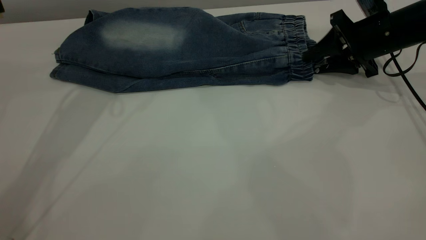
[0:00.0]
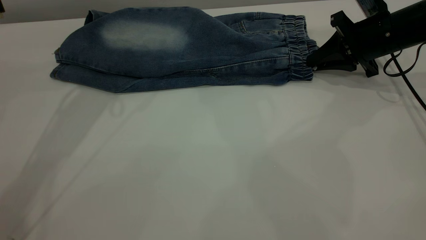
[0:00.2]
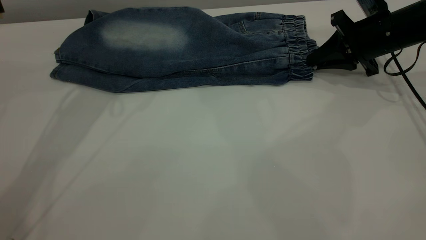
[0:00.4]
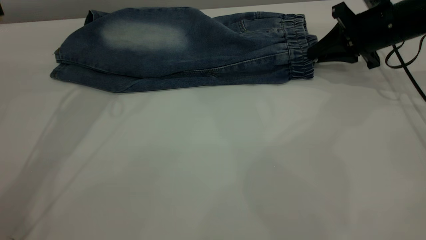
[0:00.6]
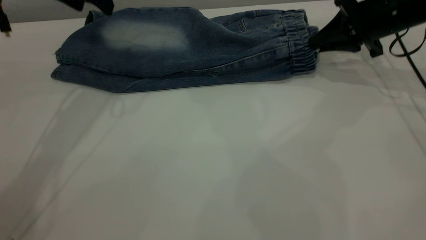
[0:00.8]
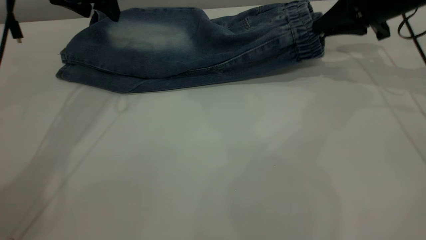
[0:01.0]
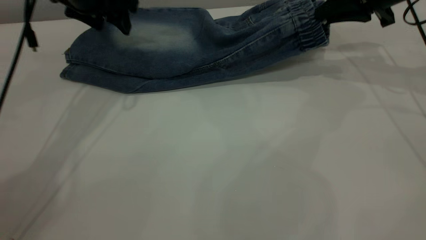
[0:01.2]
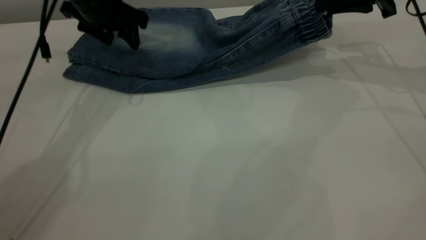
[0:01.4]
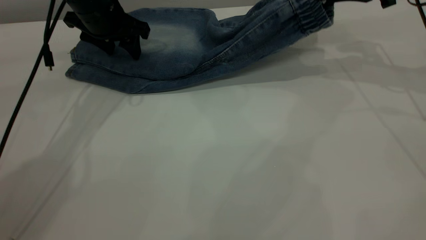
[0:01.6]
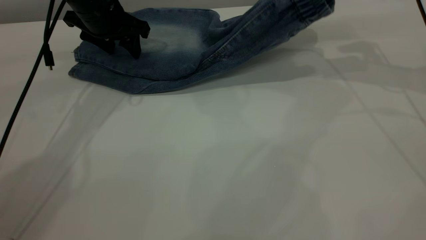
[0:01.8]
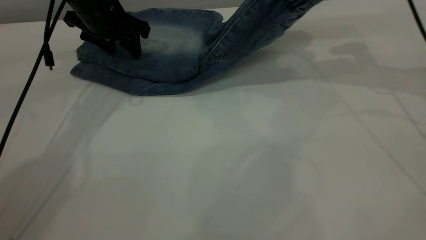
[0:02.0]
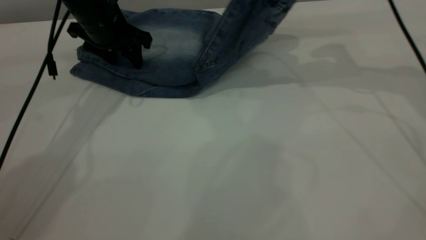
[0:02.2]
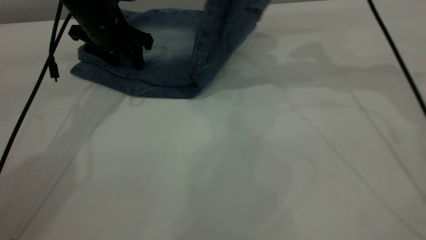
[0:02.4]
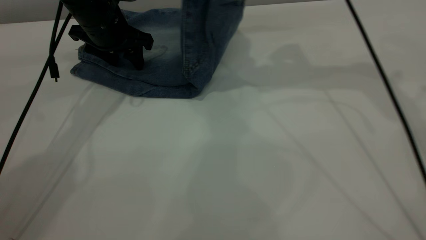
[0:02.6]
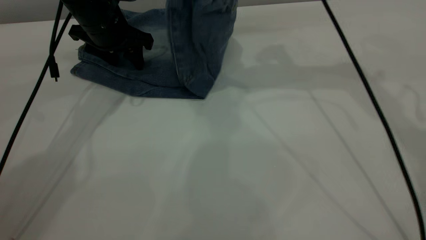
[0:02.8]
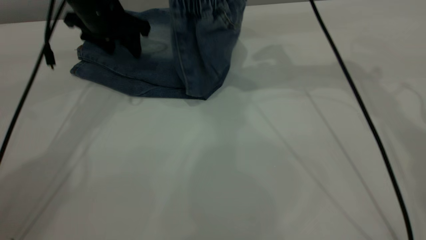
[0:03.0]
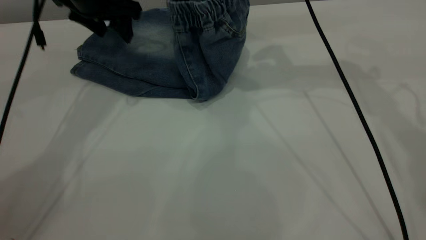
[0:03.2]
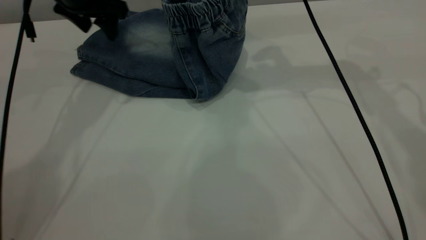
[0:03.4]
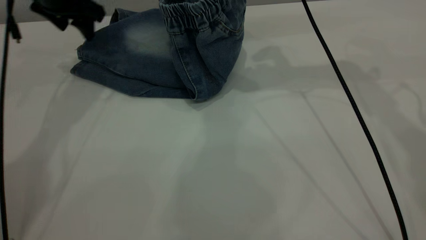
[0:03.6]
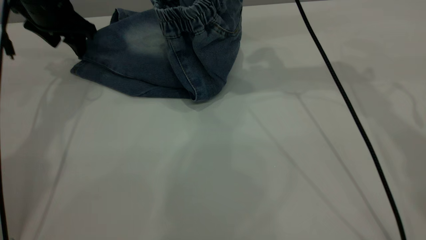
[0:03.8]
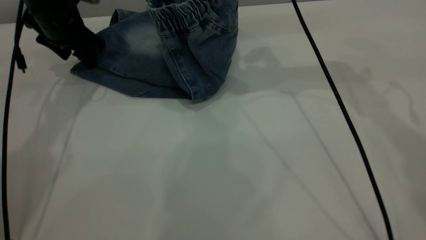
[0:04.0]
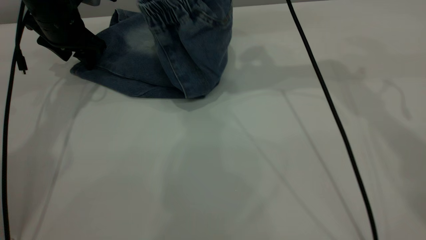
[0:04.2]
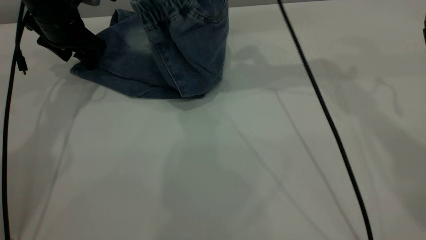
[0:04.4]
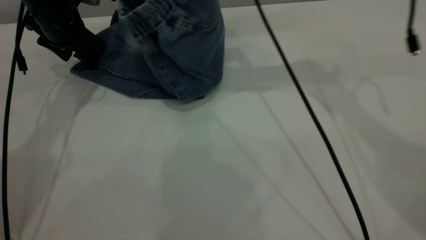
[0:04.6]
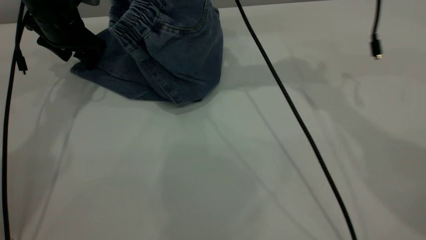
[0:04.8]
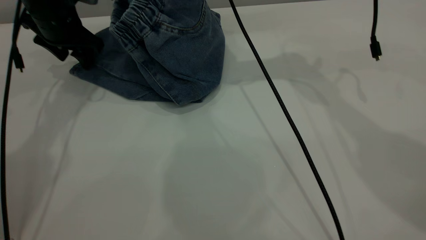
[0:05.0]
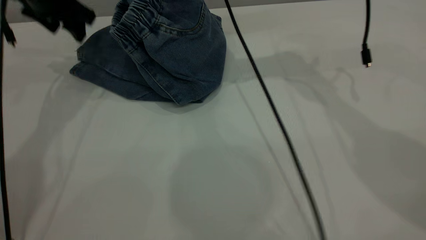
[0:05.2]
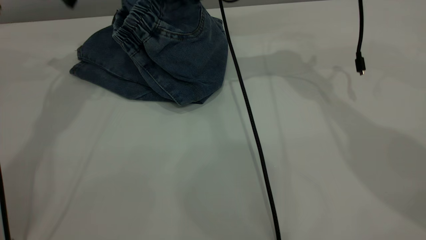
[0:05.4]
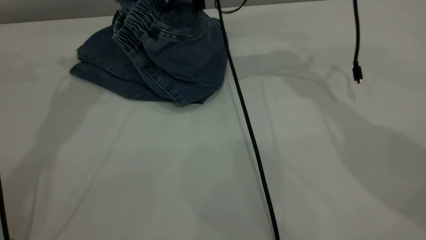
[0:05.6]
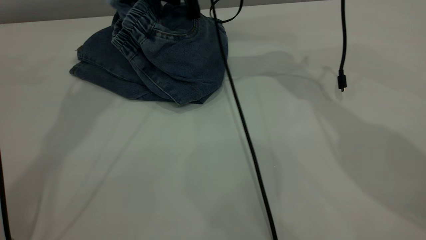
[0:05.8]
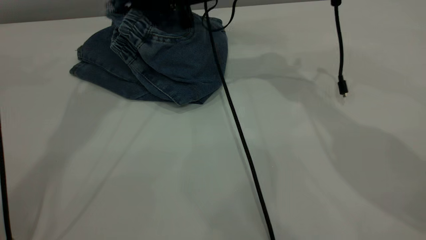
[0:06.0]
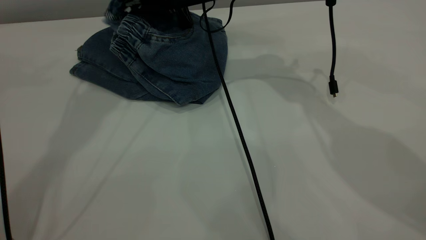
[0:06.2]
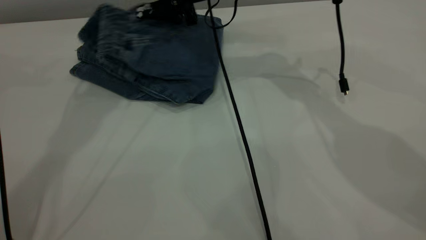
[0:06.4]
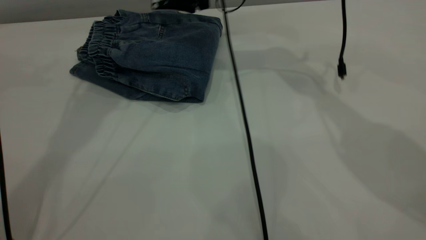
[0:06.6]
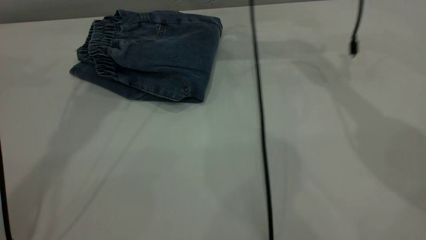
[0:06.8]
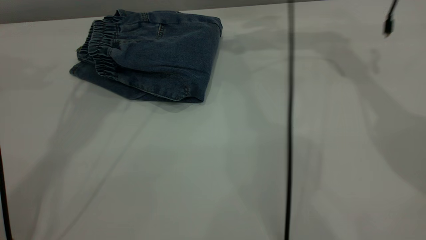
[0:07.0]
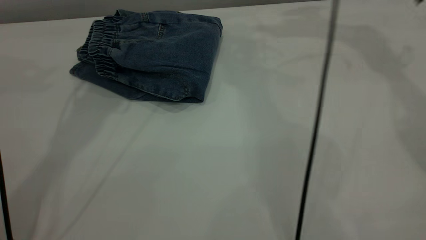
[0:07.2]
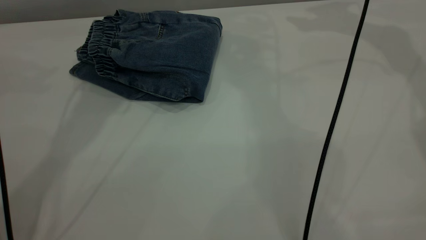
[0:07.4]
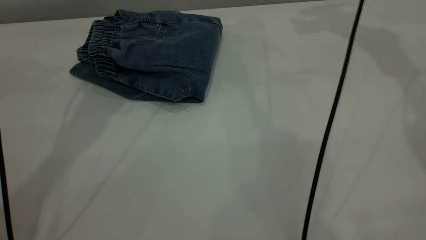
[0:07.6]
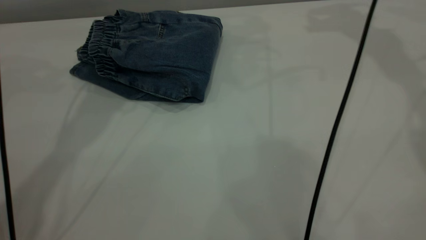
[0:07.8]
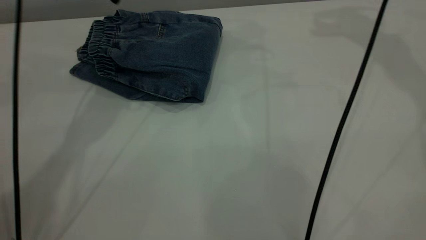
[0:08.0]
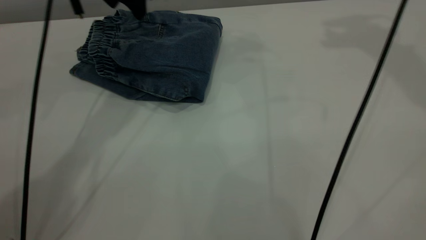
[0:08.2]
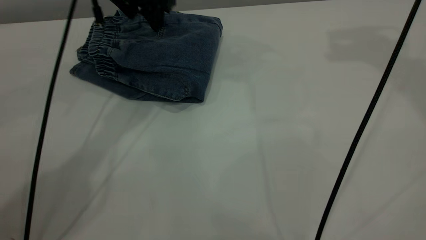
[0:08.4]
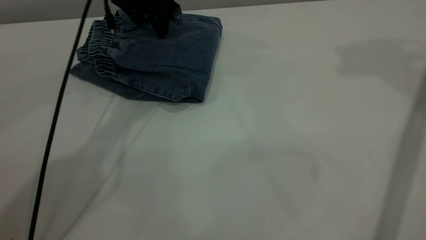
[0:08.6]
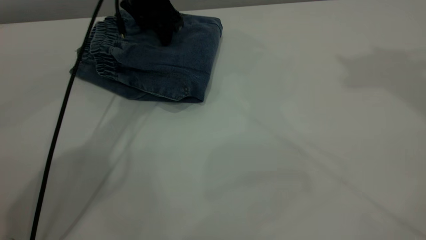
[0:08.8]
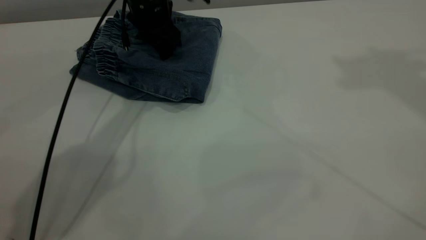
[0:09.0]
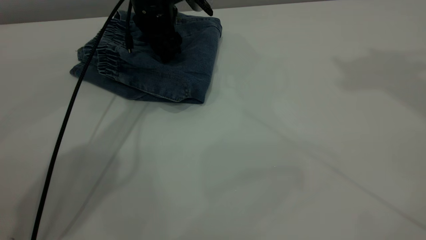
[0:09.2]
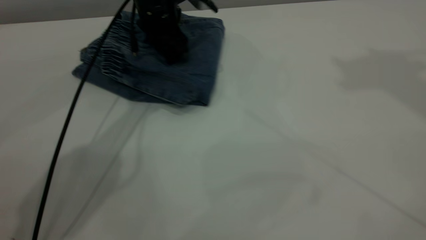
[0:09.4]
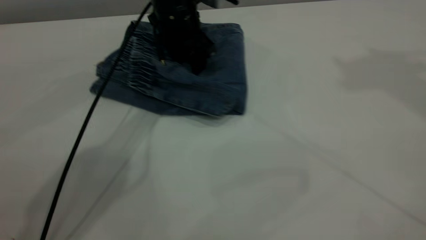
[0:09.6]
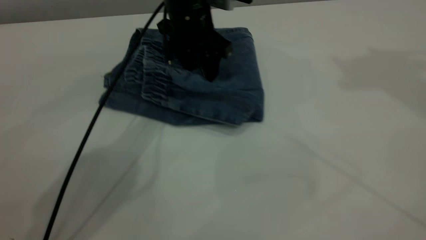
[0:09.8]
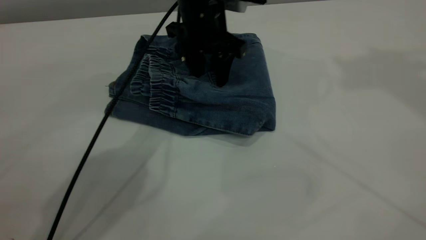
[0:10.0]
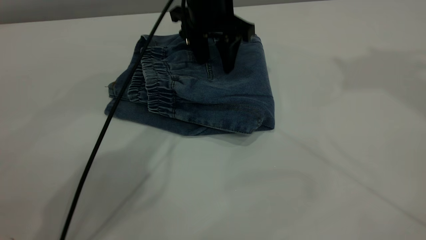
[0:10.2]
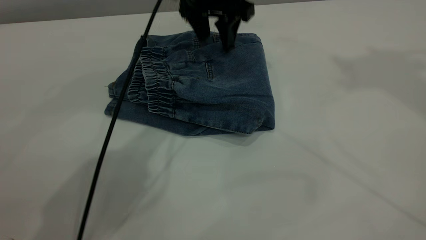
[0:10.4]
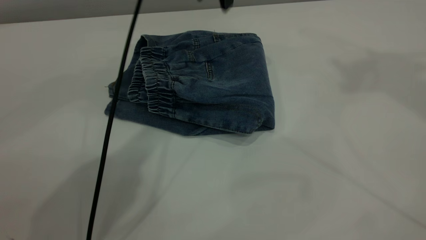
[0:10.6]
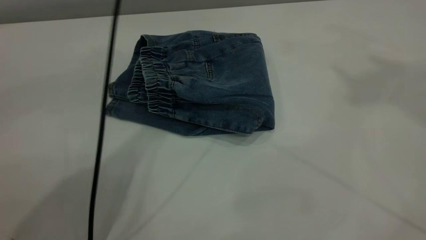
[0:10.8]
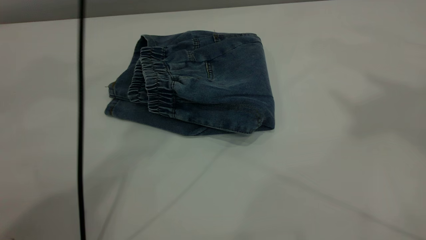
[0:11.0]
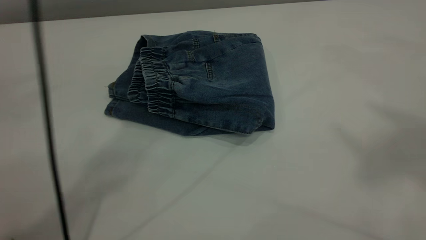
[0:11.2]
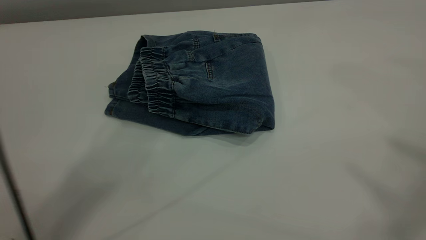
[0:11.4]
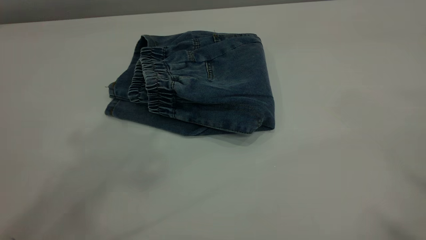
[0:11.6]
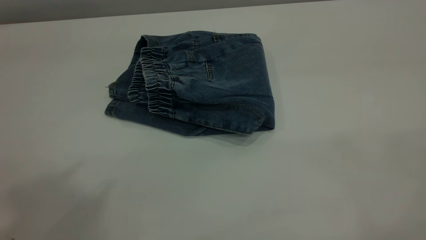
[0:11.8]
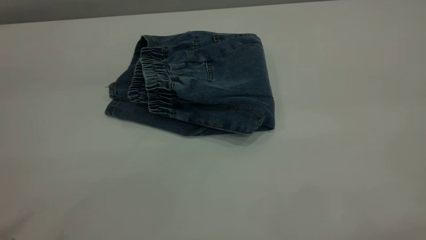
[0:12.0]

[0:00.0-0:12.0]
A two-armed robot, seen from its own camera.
Step, 0:00.0 to 0:07.2: Fold your pants from right to left.
0:00.0 to 0:01.6: The right gripper travels upward by roughly 10 cm. The left gripper shifts some 10 cm downward.
0:01.6 to 0:03.0: The right gripper moves to the left, roughly 15 cm.
0:03.0 to 0:04.4: The left gripper moves to the left, roughly 5 cm.
0:04.4 to 0:06.0: The left gripper moves upward, some 20 cm. The right gripper travels downward and to the left by approximately 15 cm.
0:06.0 to 0:07.6: The right gripper shifts approximately 30 cm to the right and upward, and opens up.
0:07.6 to 0:09.0: The left gripper moves downward and to the right, some 20 cm, while the right gripper heads upward and backward, covering roughly 30 cm.
0:09.0 to 0:10.4: The left gripper heads to the right and upward, covering approximately 10 cm.
0:10.4 to 0:12.0: The left gripper is displaced backward, upward and to the left by some 60 cm. The right gripper moves backward, some 35 cm.

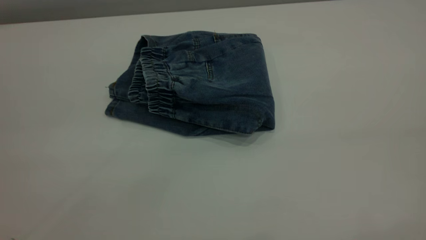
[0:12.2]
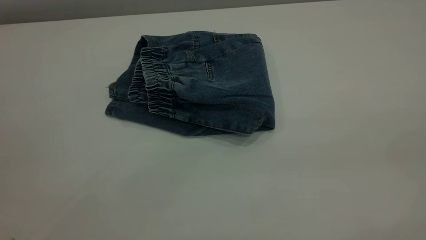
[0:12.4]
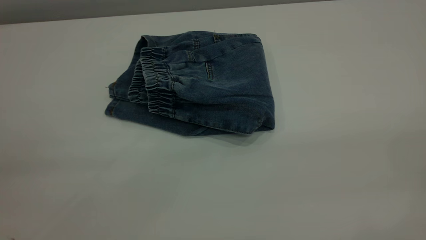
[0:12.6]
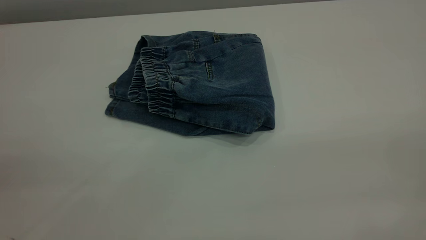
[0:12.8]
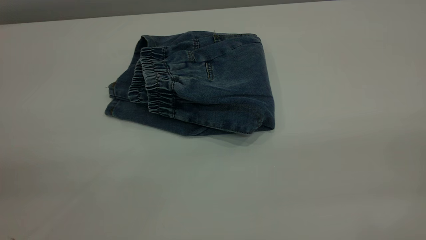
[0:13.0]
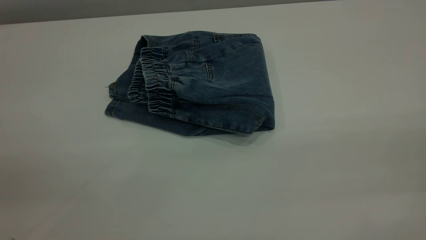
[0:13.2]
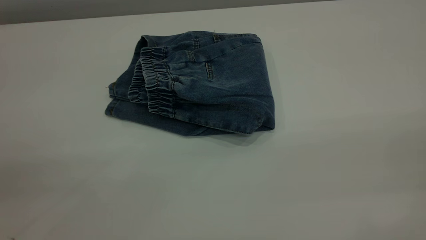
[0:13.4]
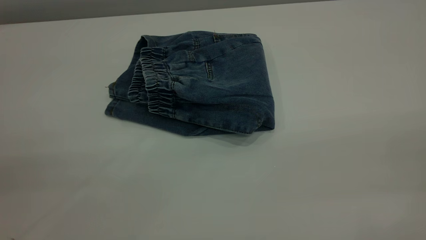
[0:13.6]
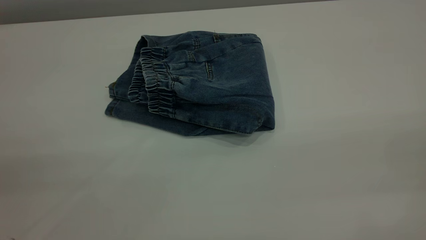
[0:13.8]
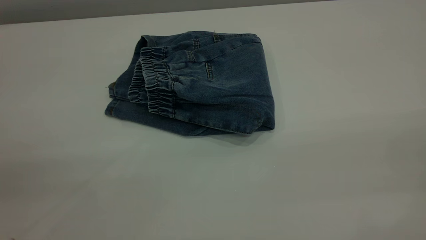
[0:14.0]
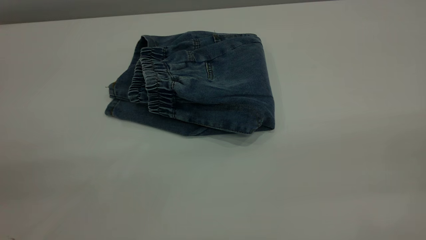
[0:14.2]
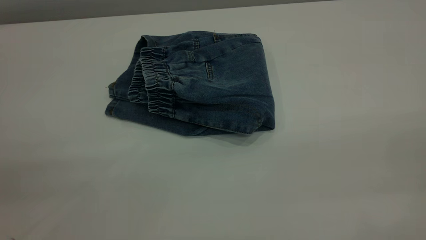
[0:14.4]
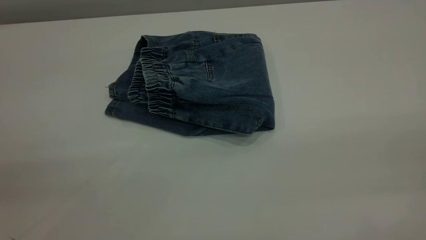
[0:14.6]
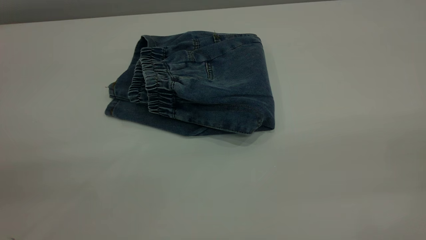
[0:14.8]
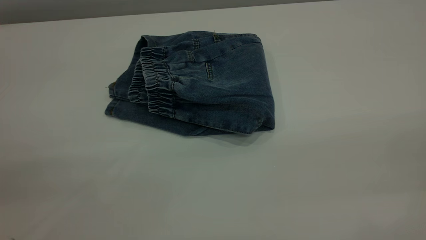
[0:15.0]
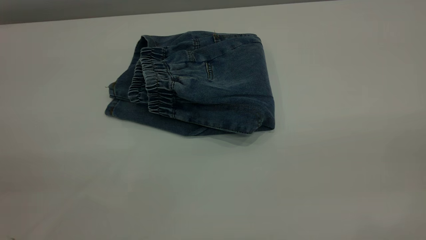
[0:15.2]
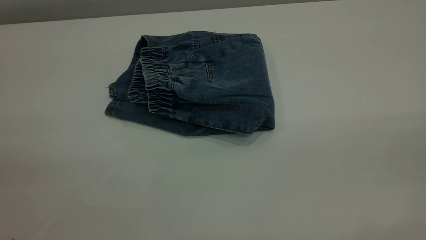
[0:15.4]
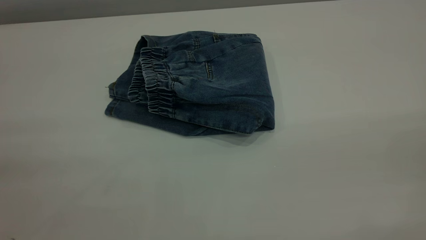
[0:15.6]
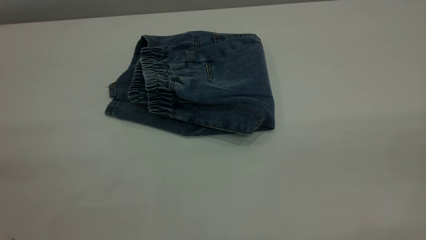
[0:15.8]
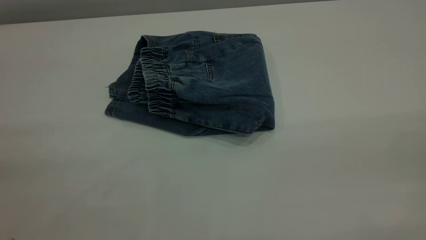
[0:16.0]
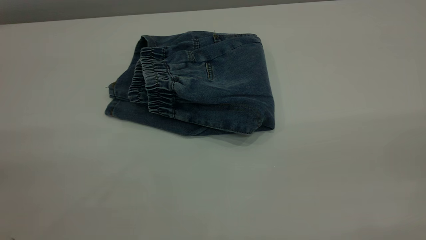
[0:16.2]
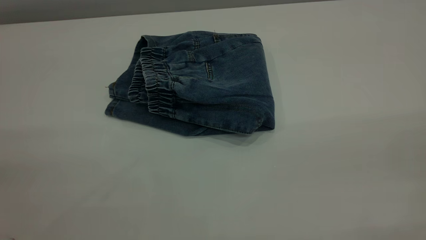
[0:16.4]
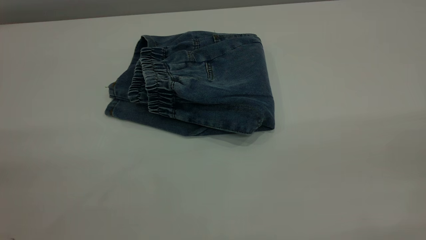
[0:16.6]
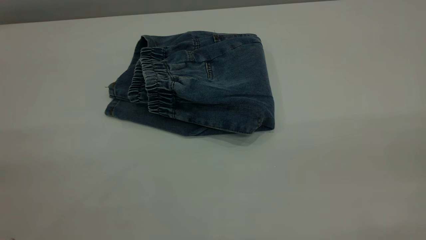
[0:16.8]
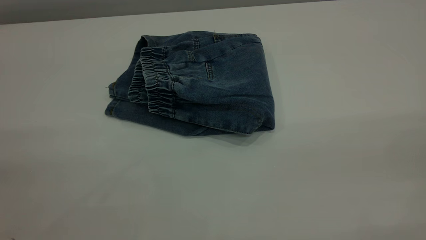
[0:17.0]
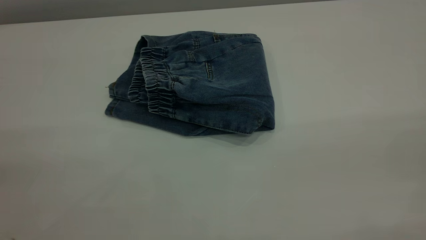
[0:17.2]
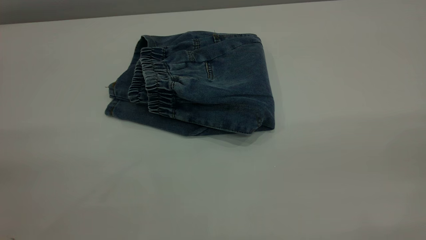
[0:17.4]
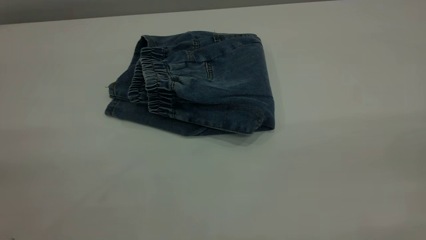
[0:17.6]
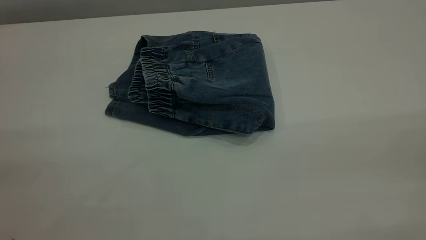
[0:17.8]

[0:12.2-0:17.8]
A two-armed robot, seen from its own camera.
0:16.4 to 0:17.8: Neither gripper changes place.
